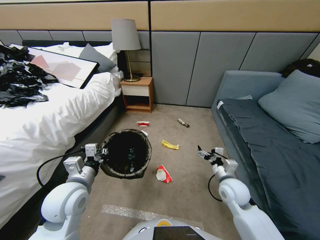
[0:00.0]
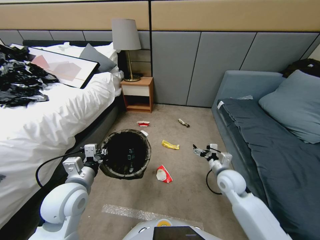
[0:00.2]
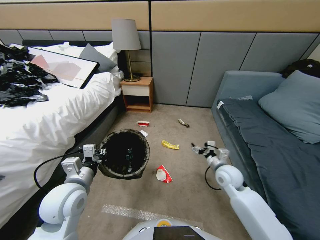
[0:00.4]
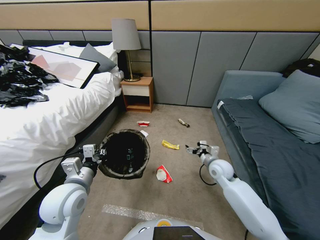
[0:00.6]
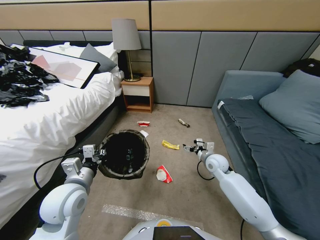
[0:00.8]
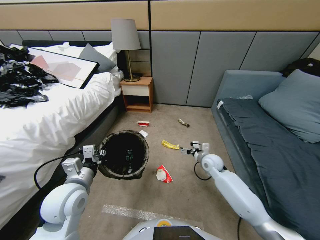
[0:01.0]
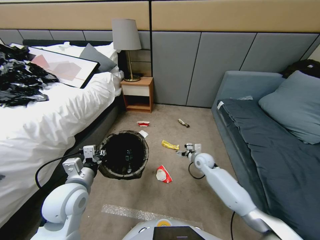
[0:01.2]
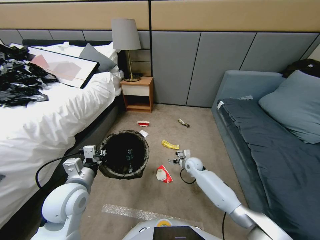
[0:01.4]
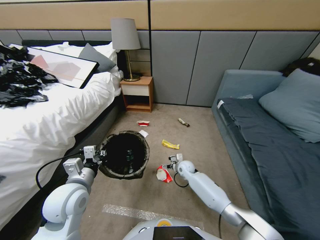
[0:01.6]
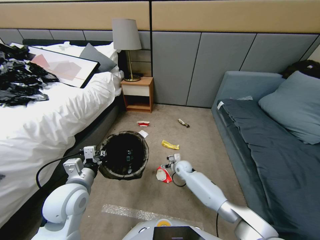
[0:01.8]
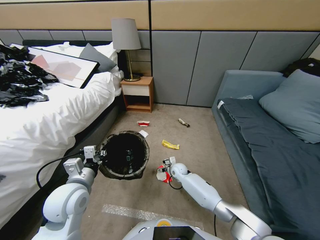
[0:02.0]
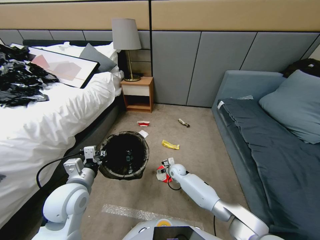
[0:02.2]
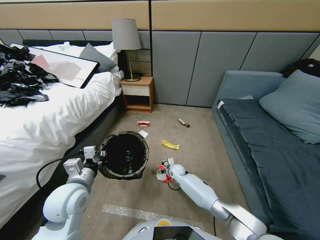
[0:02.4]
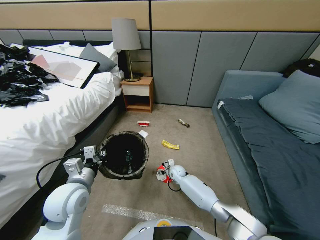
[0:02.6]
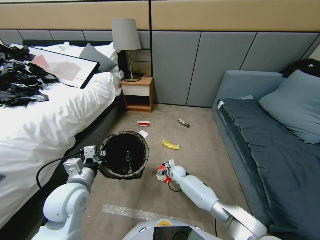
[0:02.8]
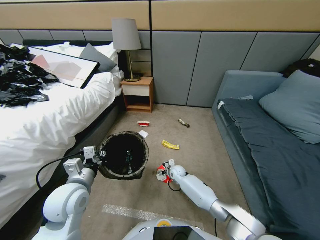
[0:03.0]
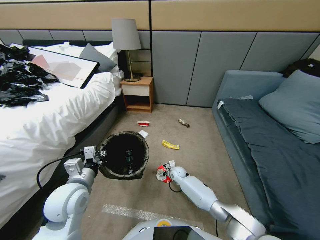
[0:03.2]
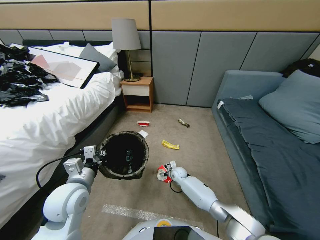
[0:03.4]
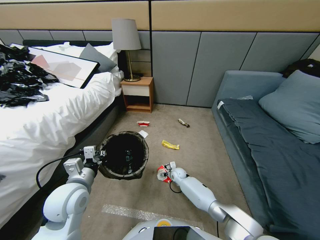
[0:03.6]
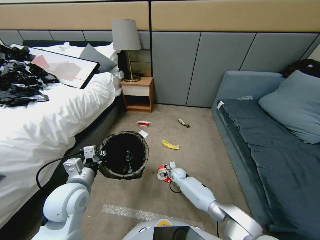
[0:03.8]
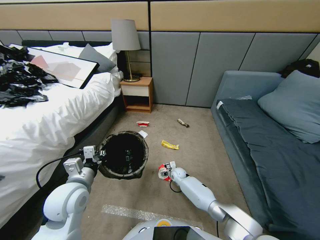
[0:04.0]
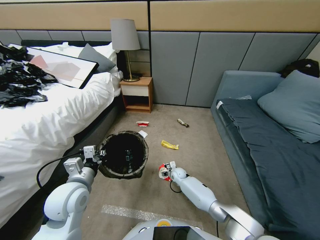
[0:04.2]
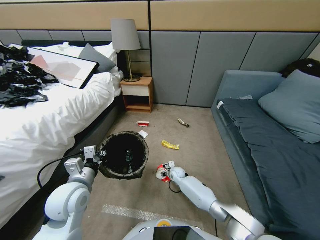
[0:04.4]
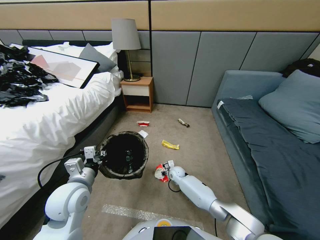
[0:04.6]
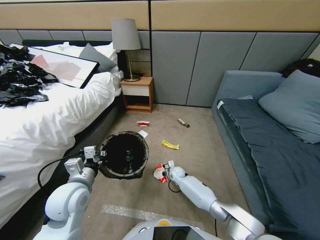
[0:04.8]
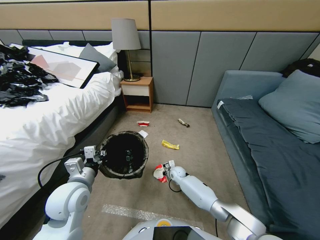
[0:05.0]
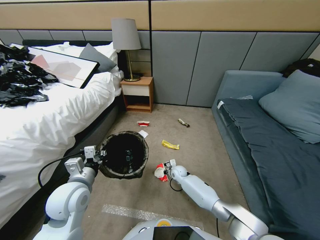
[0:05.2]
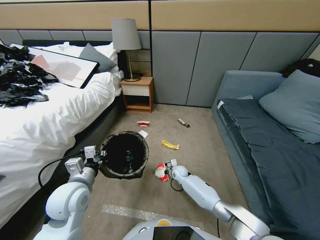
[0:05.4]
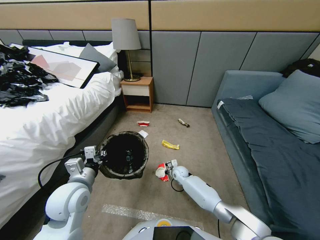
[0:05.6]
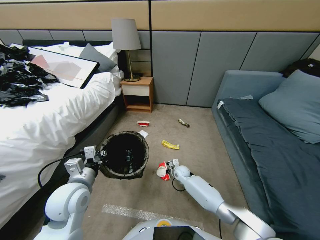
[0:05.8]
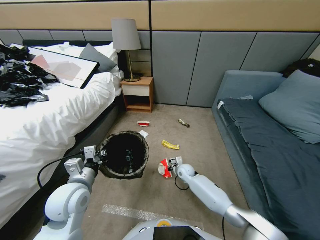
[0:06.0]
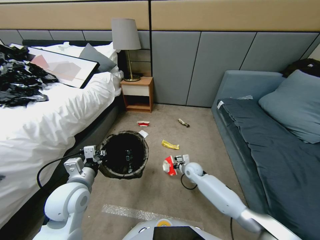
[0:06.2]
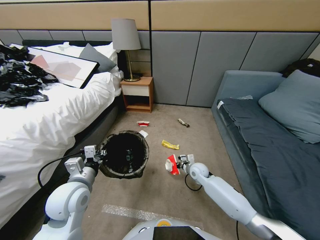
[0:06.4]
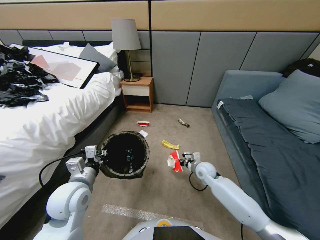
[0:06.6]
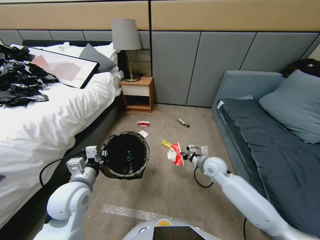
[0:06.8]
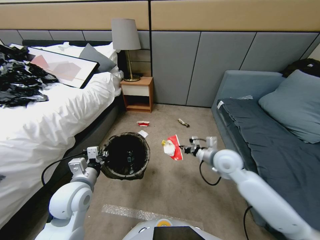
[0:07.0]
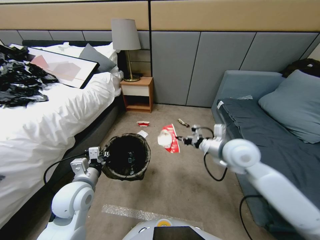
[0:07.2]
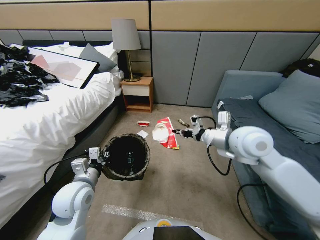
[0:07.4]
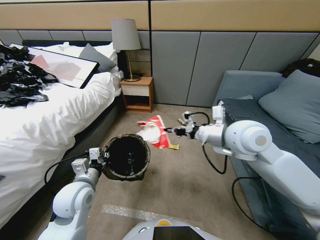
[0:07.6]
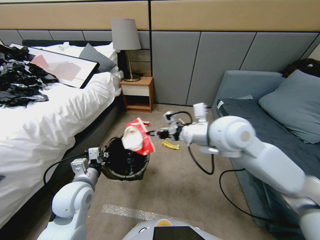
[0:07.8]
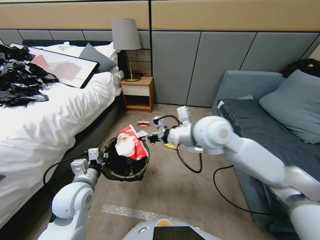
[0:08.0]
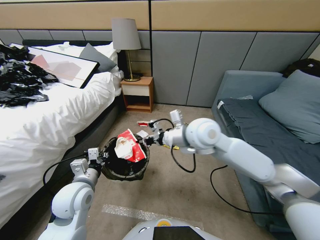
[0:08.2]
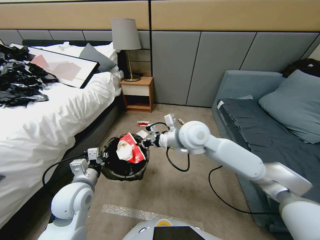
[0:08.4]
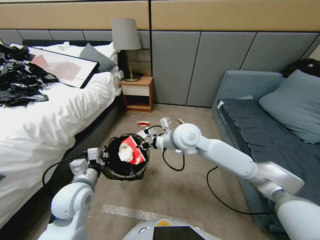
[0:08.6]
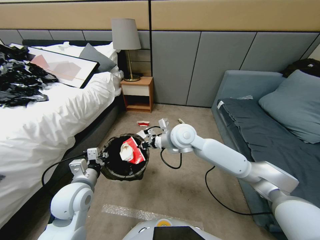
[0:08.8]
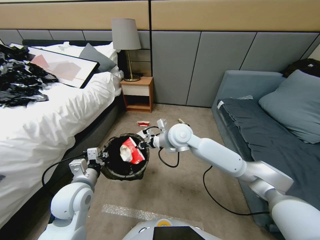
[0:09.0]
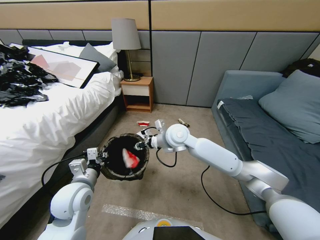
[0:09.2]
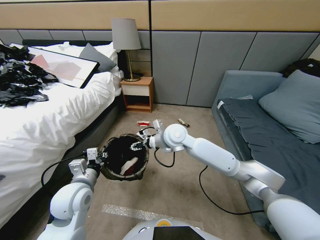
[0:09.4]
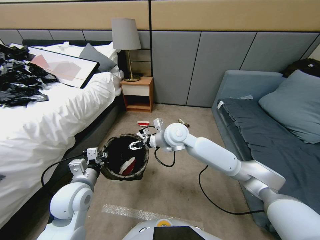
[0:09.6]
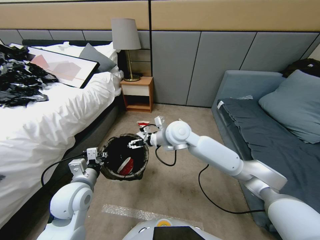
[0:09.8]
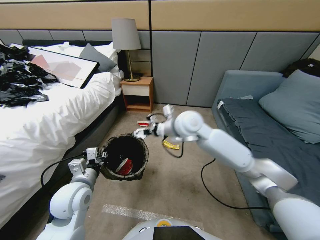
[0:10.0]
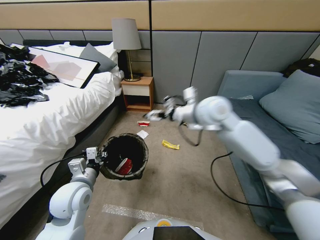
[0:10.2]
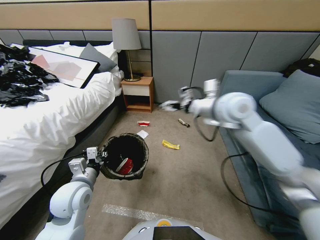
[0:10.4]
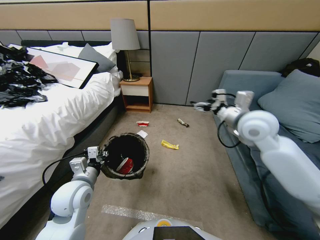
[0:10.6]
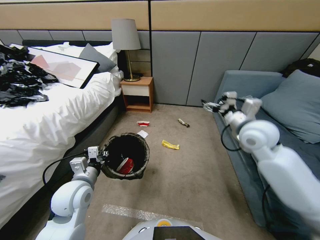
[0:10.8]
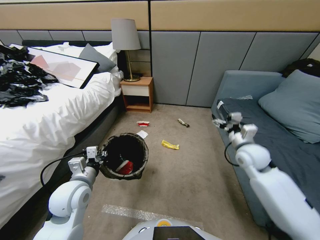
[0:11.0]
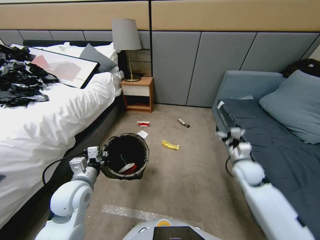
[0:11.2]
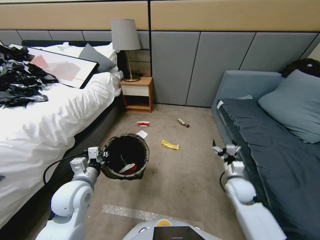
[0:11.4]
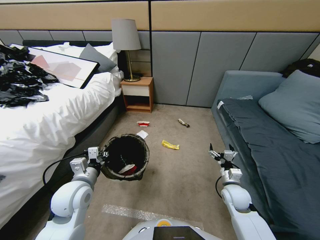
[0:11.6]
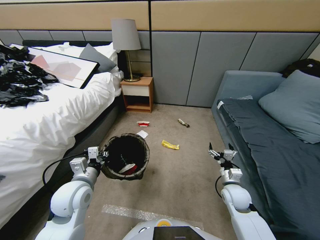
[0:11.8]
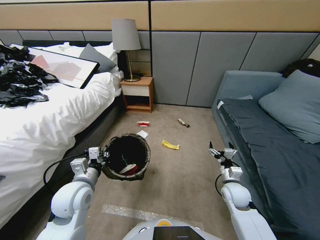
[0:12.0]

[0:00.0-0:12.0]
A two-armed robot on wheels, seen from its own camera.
Task of the whole recording: Pick up the trash bin, then pick up the garbage from the floor and place it into the trash bin.
0:00.0 to 0:01.6: The right gripper goes approximately 25 cm forward, downward and to the left.
0:01.6 to 0:03.0: The right gripper goes some 5 cm downward.
0:03.0 to 0:04.4: The right gripper closes.
0:04.4 to 0:06.0: The right gripper travels upward and to the right by about 10 cm, and closes.
0:06.0 to 0:07.6: The right gripper travels upward by roughly 40 cm.
0:07.6 to 0:09.0: The right gripper shifts some 20 cm to the left, downward and forward.
0:09.0 to 0:10.4: The right gripper shifts approximately 25 cm to the right and upward, and opens.
0:10.4 to 0:12.0: The right gripper is displaced downward by roughly 30 cm.

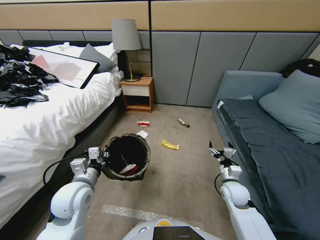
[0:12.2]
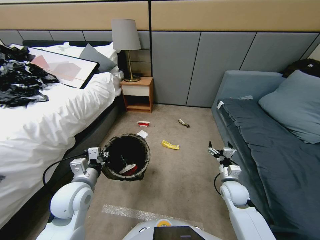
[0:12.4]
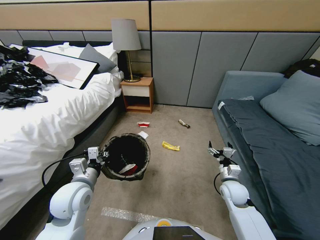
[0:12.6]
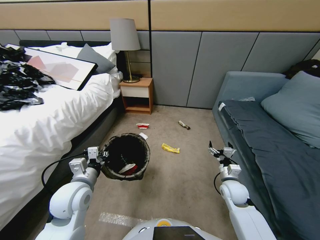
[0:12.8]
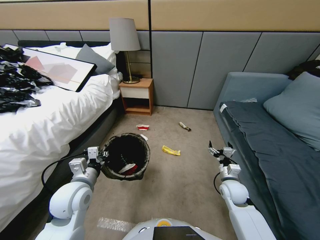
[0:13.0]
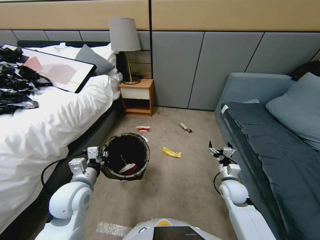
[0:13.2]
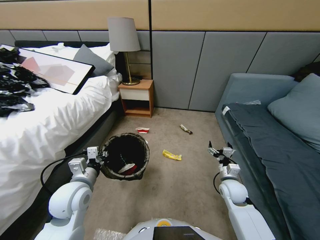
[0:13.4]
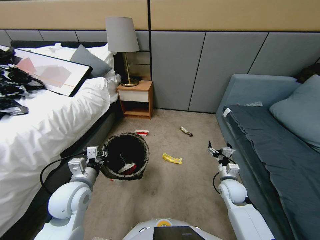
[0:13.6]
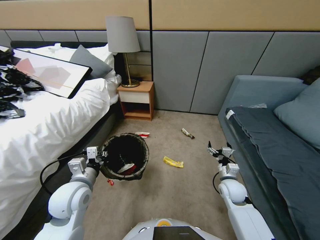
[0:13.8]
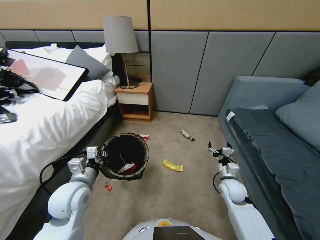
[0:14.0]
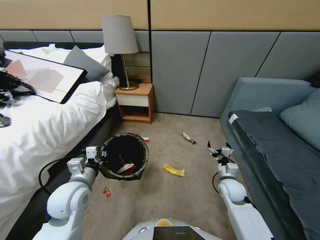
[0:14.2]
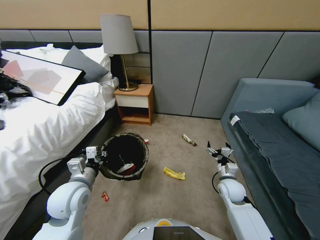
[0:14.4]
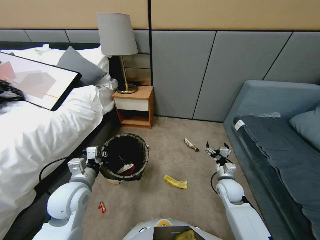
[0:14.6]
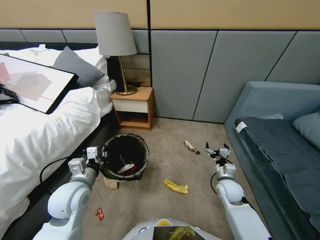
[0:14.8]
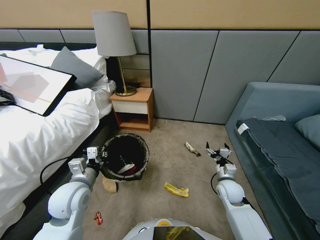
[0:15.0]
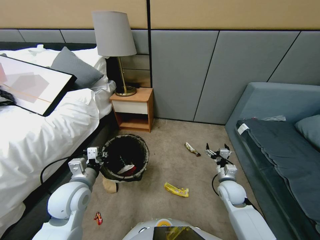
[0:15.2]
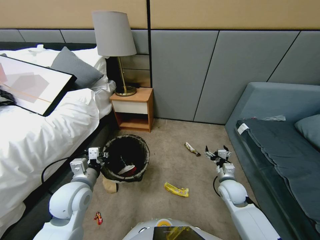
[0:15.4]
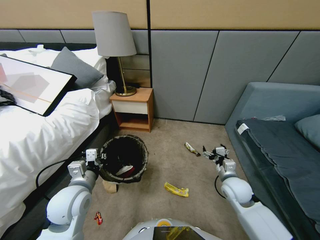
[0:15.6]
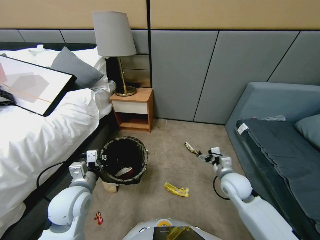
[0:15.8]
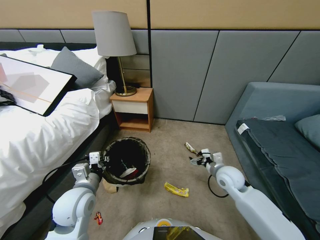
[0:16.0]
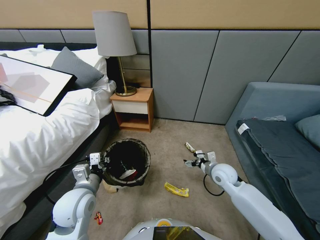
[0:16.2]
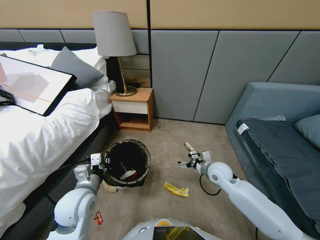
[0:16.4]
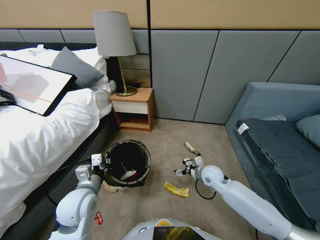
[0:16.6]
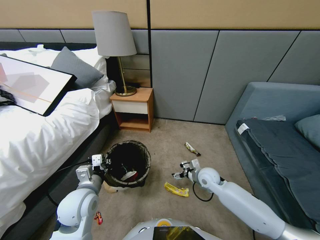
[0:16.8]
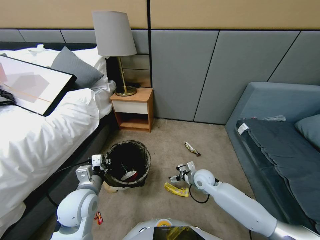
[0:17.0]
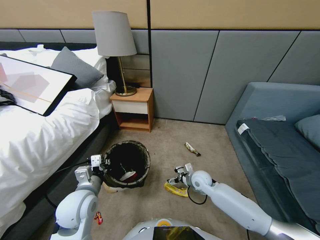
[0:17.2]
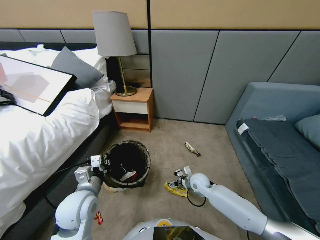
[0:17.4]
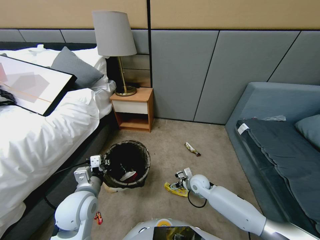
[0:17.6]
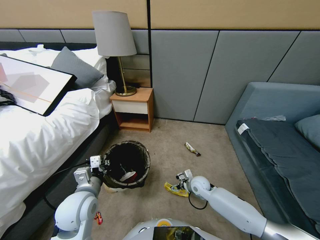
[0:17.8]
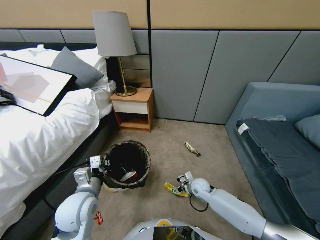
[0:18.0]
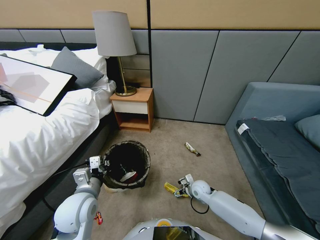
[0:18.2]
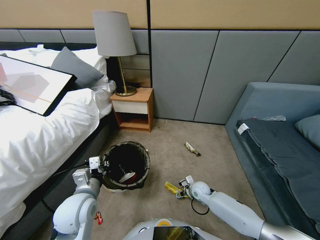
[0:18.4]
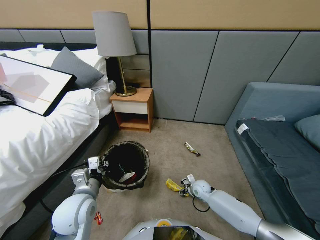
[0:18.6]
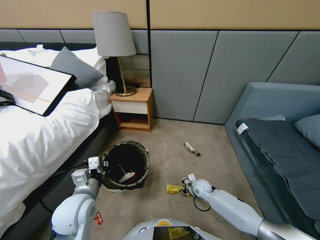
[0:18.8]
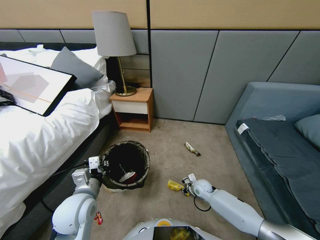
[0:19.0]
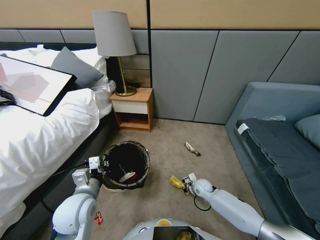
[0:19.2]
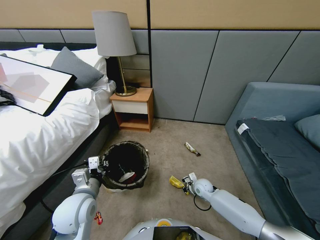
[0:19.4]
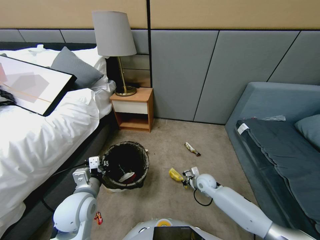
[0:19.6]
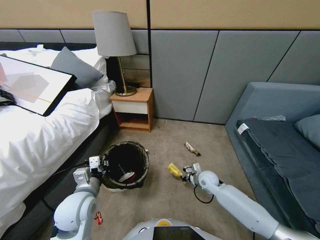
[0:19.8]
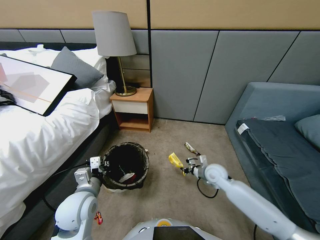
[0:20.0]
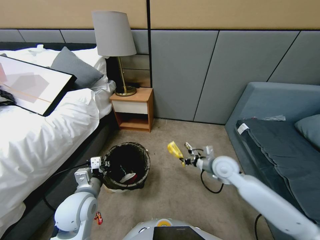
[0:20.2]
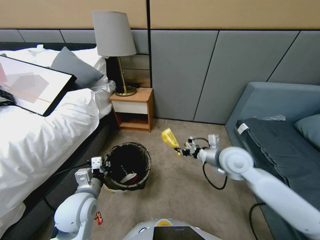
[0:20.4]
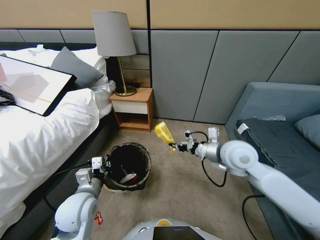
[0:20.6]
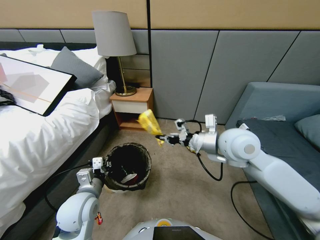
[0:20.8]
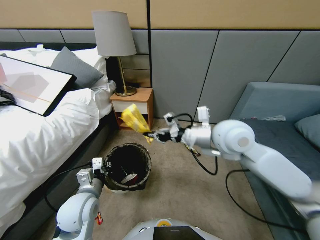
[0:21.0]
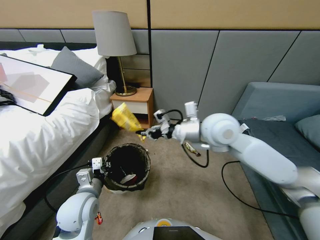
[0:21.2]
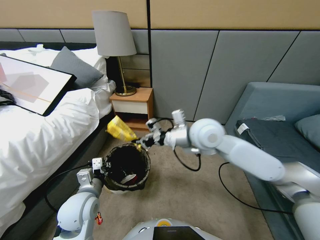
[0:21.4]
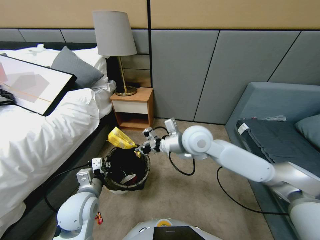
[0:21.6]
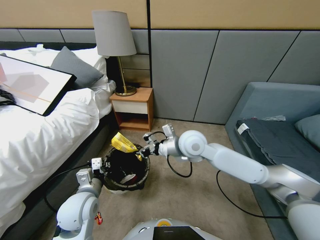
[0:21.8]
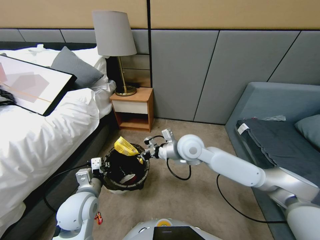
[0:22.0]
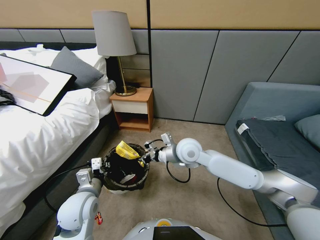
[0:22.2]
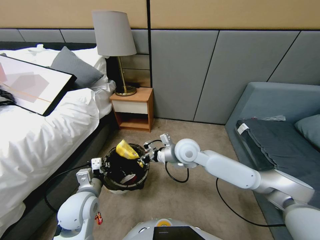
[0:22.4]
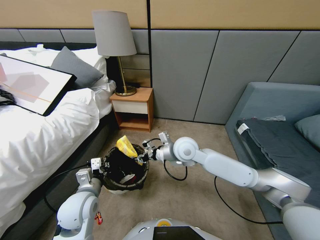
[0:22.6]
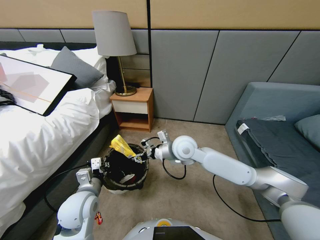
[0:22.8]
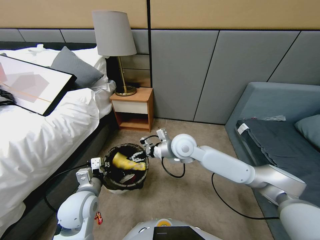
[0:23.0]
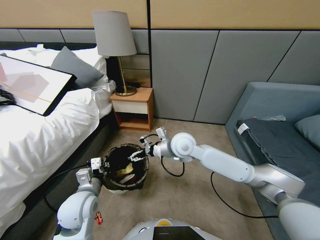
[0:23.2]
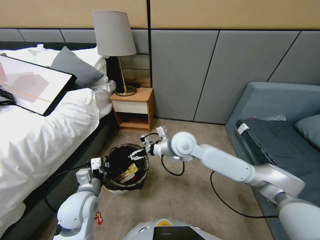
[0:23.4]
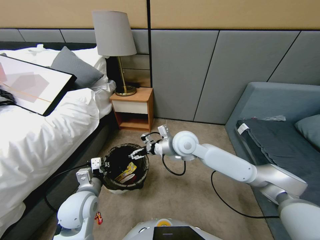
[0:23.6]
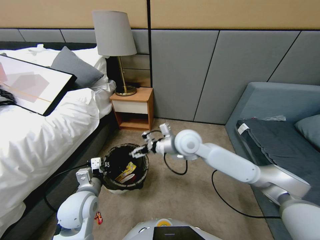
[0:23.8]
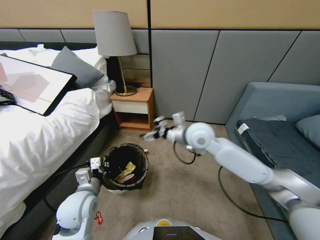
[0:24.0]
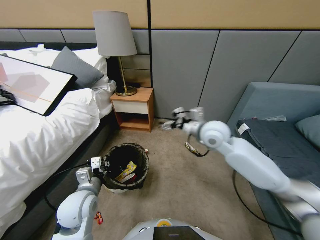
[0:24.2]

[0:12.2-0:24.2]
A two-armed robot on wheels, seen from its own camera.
Task of the whole recording: Pick up the trash bin, then pick up the garbage from the floor and place it into the trash bin.
0:15.2 to 0:16.6: The right gripper heads to the left and forward, covering about 10 cm.
0:16.6 to 0:18.2: The right gripper moves downward, about 15 cm.
0:18.2 to 0:19.8: The right gripper travels upward by approximately 10 cm, and closes its fingers.
0:19.8 to 0:21.2: The right gripper moves upward, approximately 30 cm.
0:21.2 to 0:22.6: The right gripper shifts roughly 10 cm downward and to the left, and opens.
0:22.6 to 0:24.2: The right gripper goes some 15 cm to the right, and opens up.
